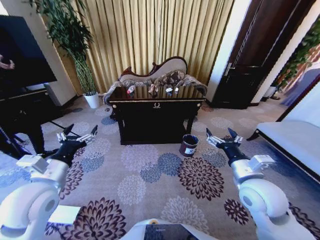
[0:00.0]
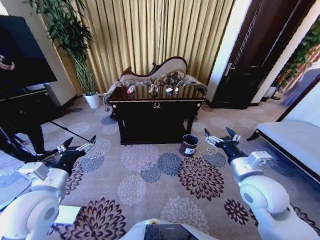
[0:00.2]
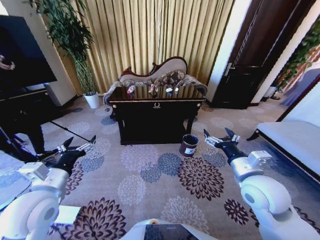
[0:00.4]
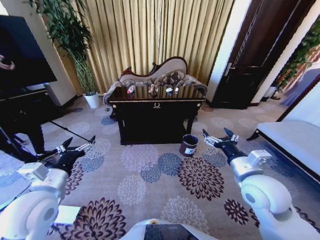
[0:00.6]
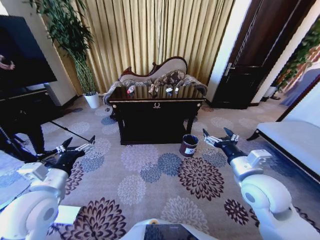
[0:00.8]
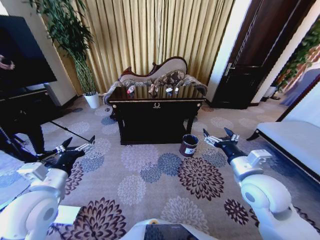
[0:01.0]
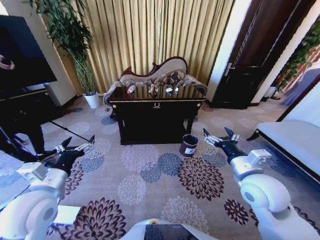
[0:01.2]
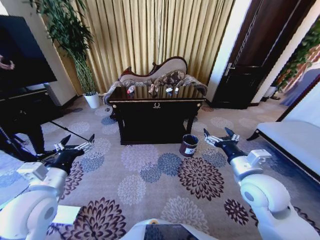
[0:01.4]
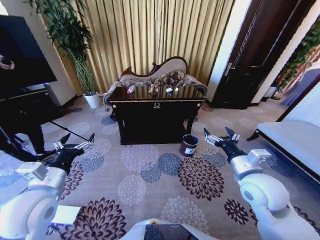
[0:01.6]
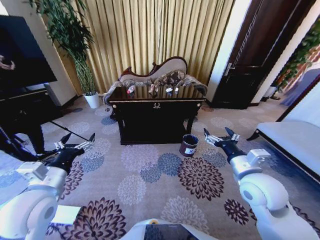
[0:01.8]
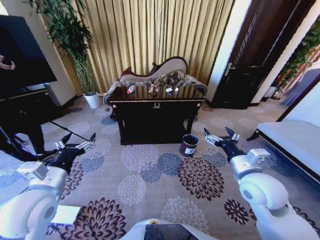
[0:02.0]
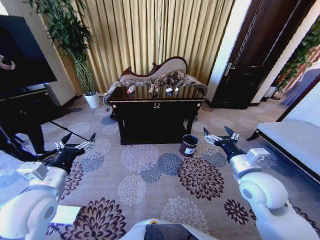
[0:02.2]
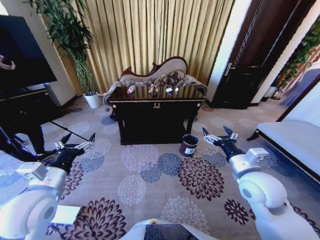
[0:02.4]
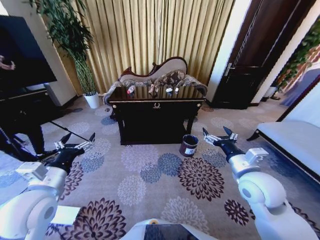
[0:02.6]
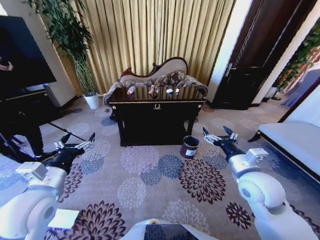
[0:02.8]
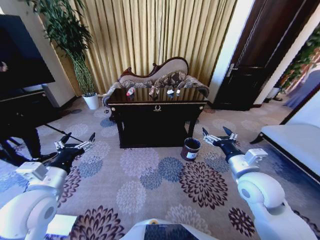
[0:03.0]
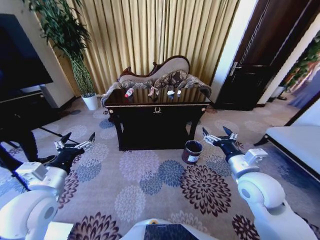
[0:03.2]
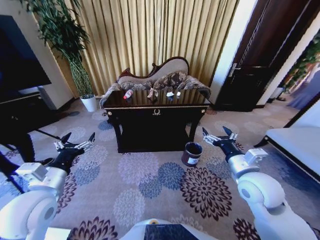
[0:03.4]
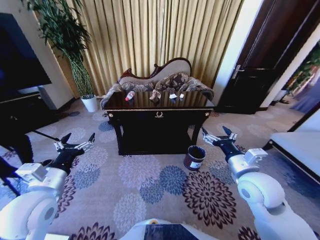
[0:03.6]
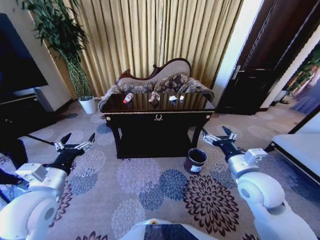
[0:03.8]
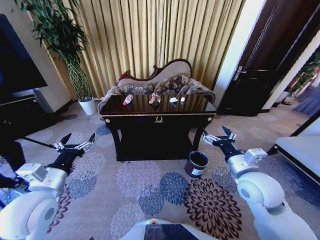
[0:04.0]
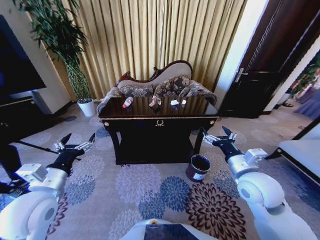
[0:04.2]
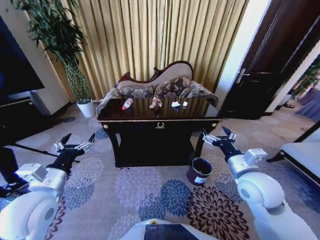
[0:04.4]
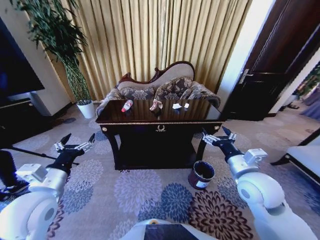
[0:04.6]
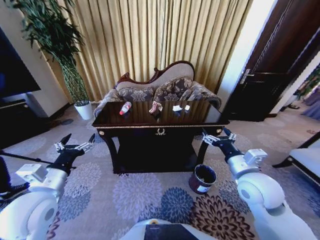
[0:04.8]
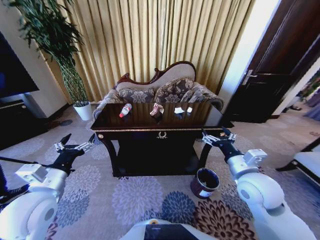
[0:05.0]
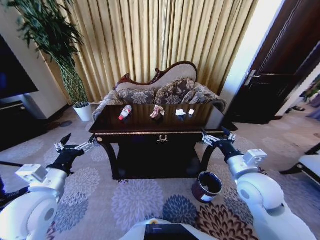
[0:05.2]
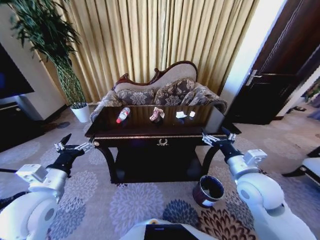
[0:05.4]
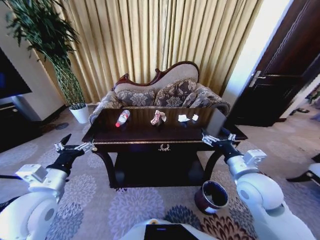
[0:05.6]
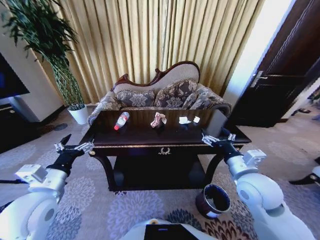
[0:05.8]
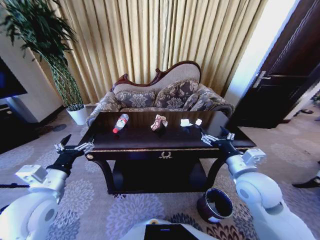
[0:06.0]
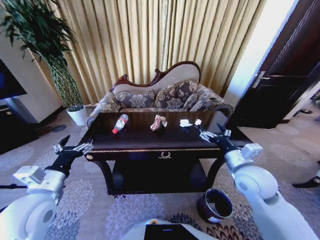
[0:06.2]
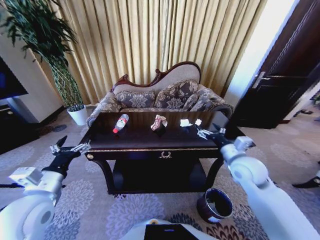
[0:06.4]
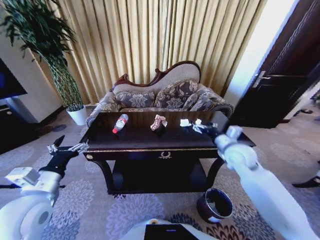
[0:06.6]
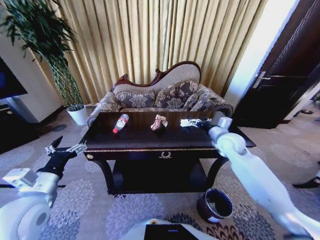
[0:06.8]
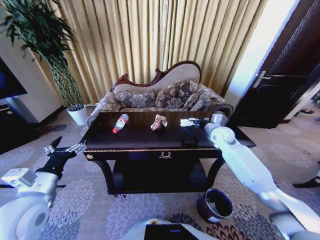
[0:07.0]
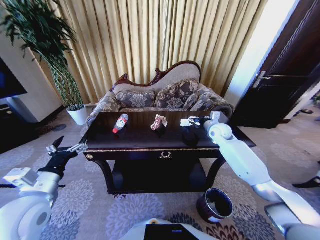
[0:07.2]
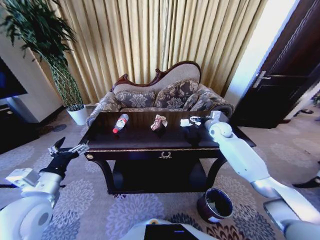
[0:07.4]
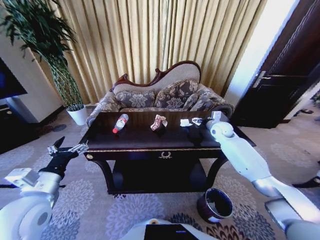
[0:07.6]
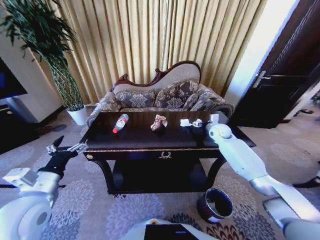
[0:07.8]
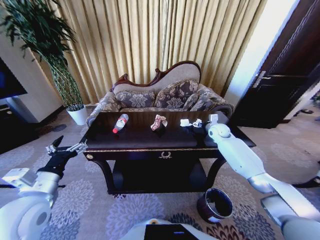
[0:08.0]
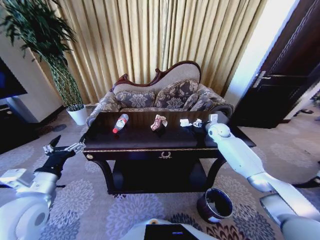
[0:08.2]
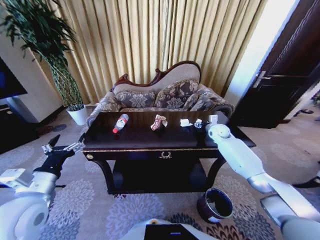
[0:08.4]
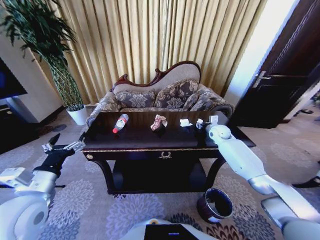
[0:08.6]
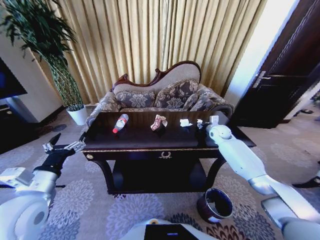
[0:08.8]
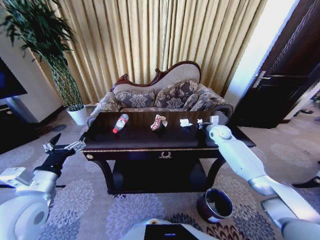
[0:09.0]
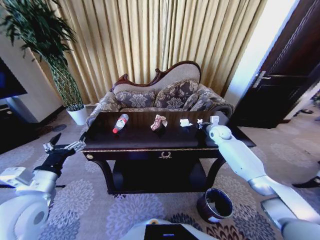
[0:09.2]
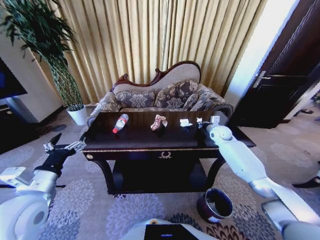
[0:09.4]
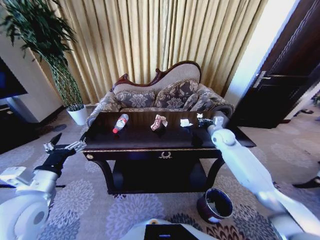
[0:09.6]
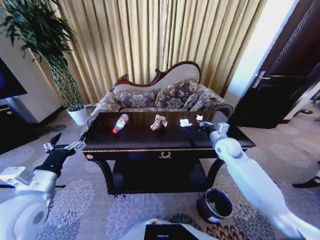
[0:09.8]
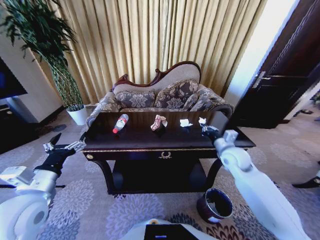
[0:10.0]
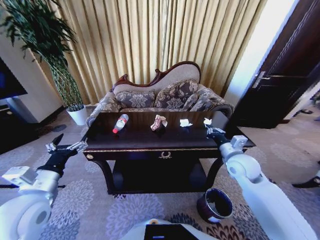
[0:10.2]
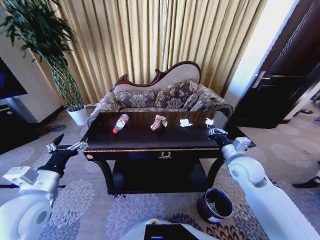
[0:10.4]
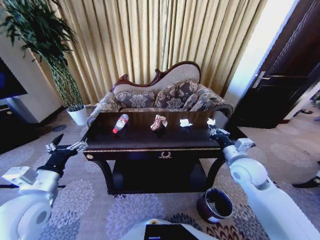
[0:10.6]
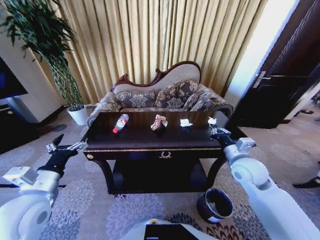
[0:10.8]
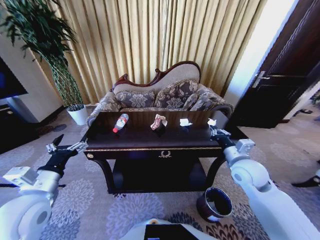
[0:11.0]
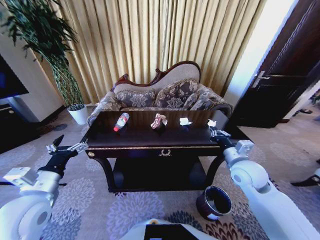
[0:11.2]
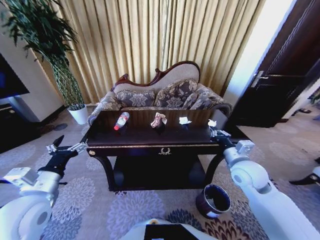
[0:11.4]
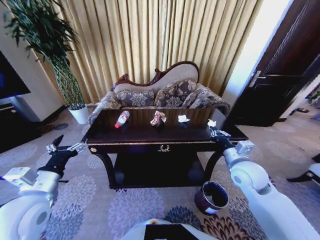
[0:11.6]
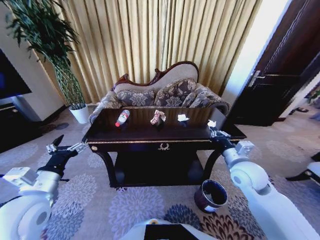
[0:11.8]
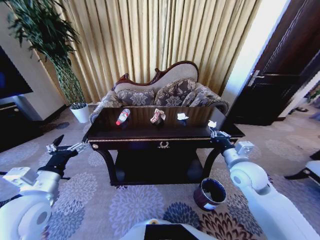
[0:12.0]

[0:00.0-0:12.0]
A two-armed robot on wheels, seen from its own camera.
Task of the whole recording: Move to the front of the table and place the trash on the table into the trash bin.
0:06.0 to 0:07.6: The right gripper heads forward, covering approximately 30 cm.
0:07.6 to 0:09.0: The right gripper closes up.
0:09.0 to 0:10.4: The right gripper heads backward, covering about 25 cm.

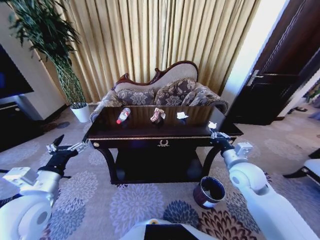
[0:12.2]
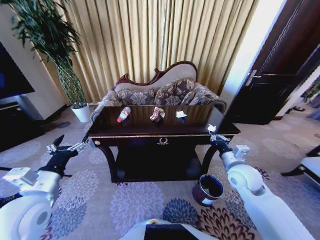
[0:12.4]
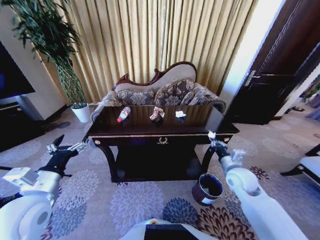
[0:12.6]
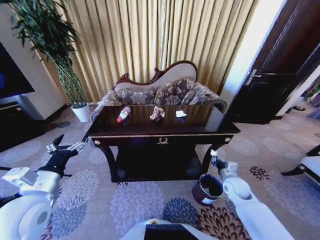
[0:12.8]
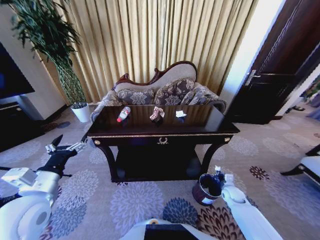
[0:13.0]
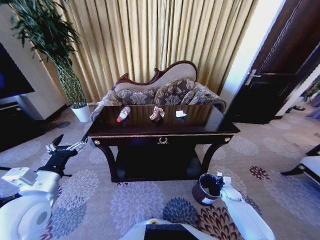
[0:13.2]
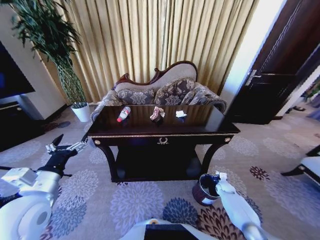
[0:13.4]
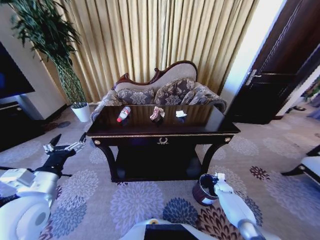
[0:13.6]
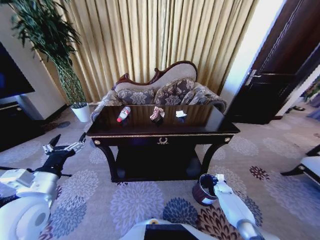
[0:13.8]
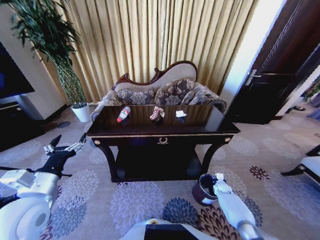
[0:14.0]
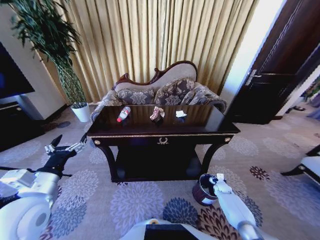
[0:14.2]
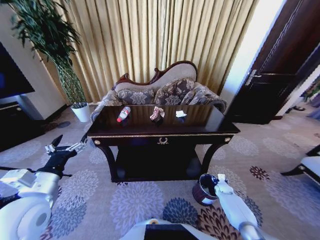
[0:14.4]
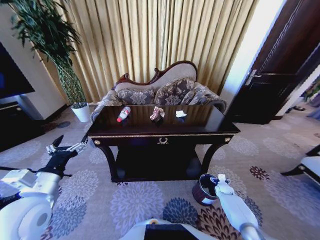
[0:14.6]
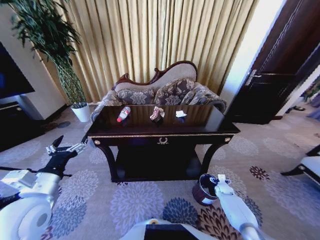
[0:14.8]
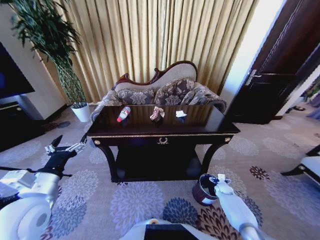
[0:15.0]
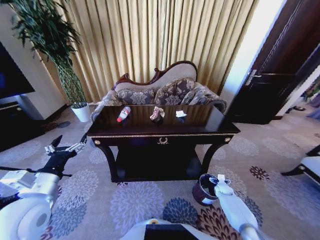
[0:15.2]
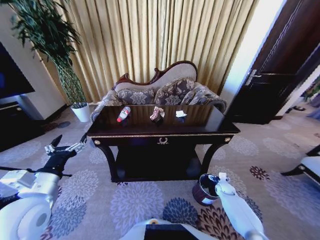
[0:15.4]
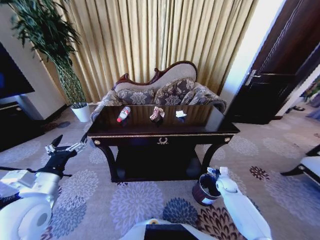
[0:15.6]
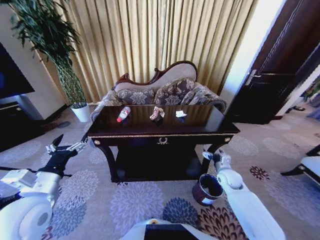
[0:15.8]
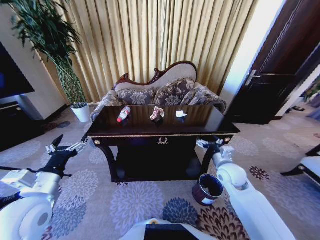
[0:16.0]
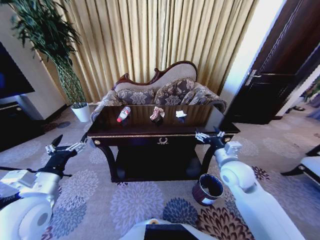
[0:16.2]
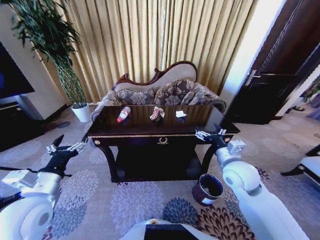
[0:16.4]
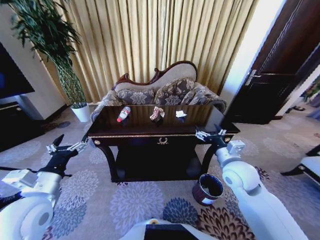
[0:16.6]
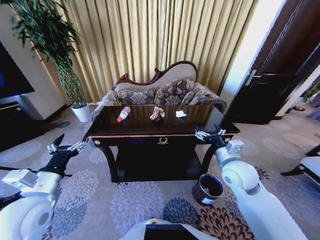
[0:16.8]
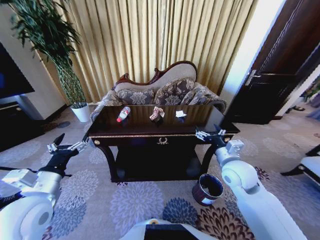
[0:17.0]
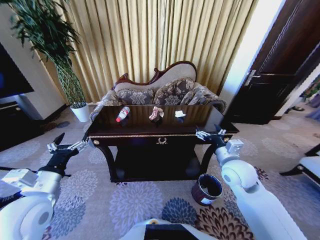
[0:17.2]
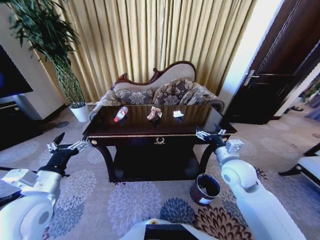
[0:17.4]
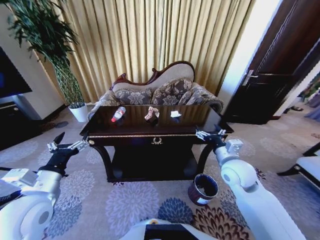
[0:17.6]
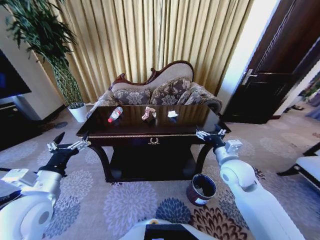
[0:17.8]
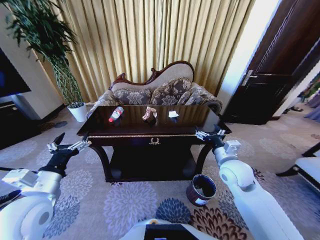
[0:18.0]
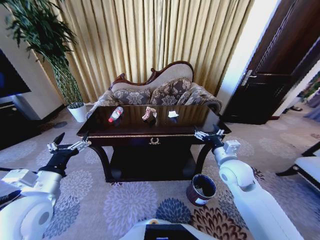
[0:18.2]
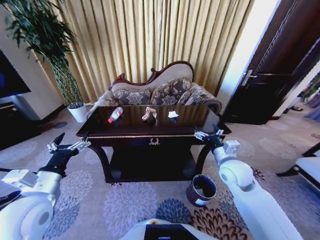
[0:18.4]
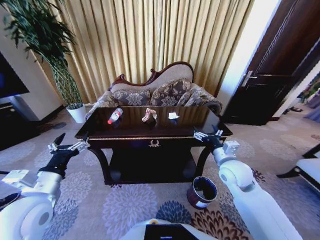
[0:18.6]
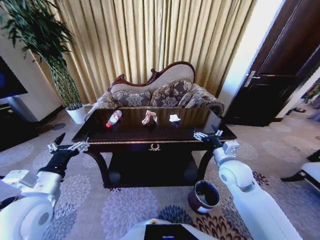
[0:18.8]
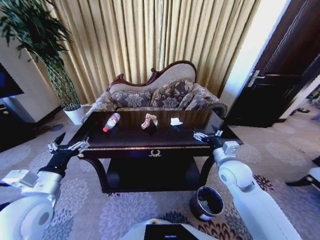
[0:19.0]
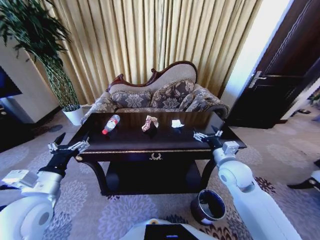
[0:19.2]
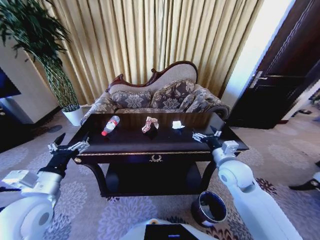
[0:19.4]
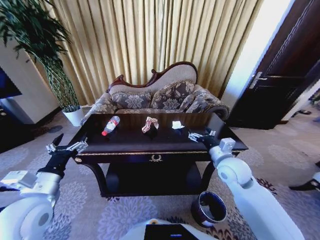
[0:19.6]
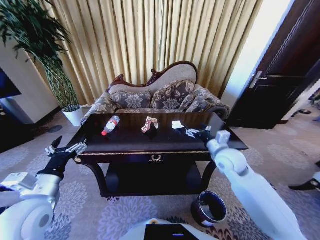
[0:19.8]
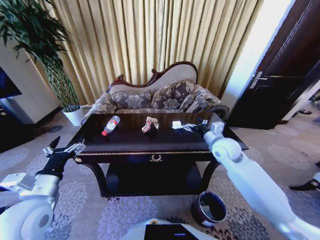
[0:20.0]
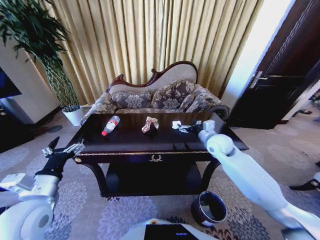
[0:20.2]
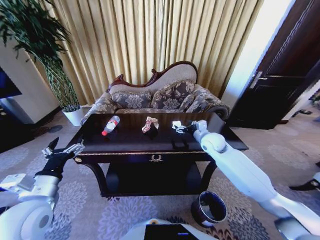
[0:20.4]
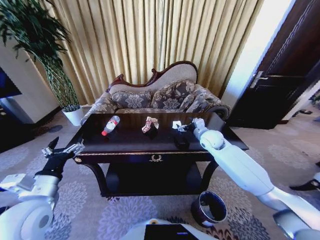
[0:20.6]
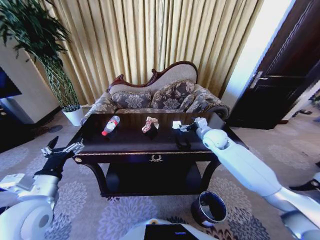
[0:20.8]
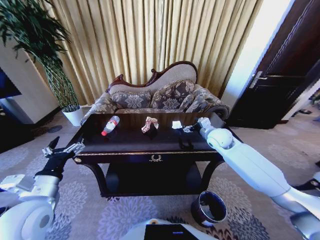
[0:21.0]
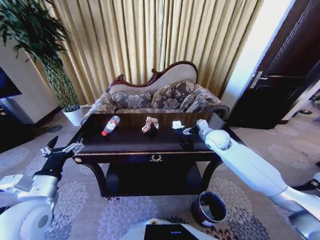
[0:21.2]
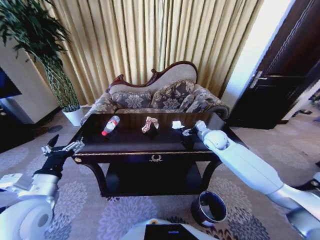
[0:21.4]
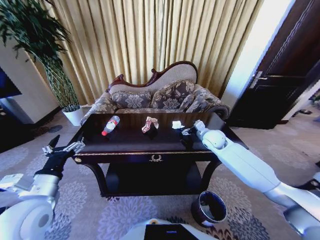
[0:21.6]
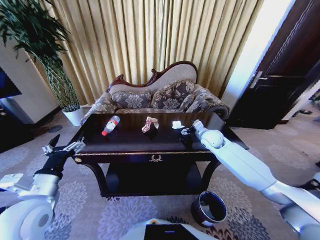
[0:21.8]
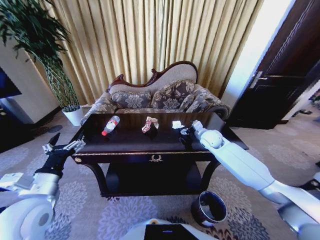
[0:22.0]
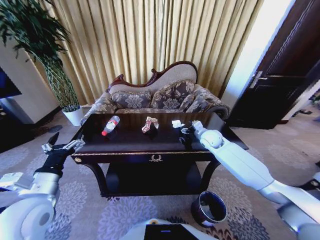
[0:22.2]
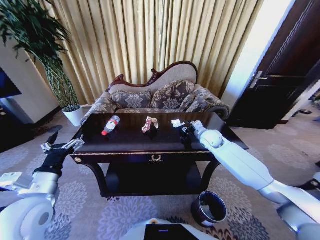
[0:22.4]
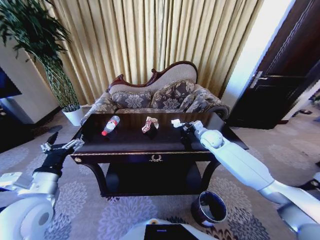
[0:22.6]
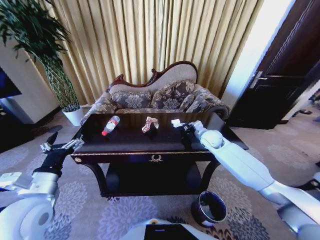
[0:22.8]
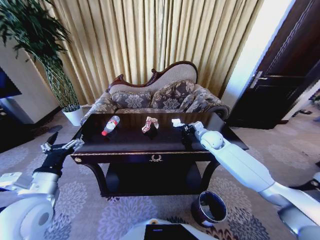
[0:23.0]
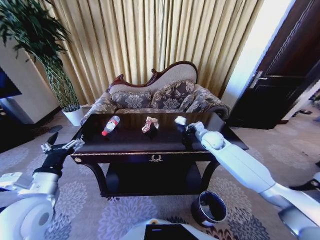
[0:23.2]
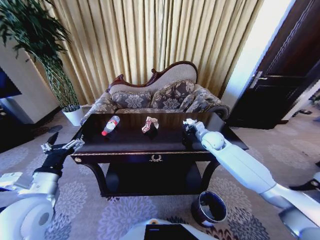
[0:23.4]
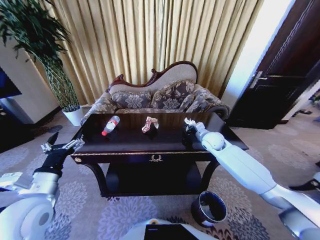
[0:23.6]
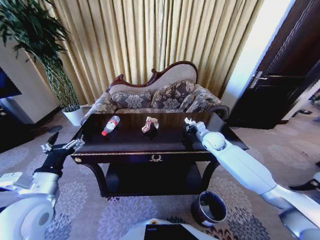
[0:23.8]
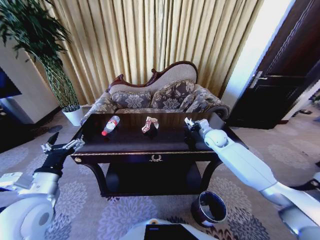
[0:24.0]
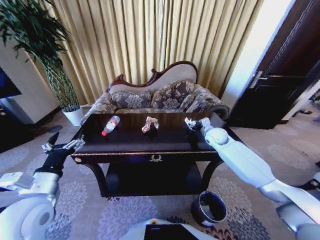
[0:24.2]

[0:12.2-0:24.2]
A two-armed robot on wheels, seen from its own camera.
Task of the whole recording: Move to the front of the table and place the trash on the table into the trash bin.
0:12.2 to 0:13.8: The right gripper heads downward, covering about 35 cm.
0:13.8 to 0:15.2: The right gripper opens its fingers.
0:15.2 to 0:16.6: The right gripper is displaced upward and to the left by roughly 40 cm.
0:19.8 to 0:21.2: The right gripper goes about 10 cm forward.
0:21.2 to 0:22.6: The right gripper closes up.
0:22.6 to 0:24.2: The right gripper closes, then opens again.
